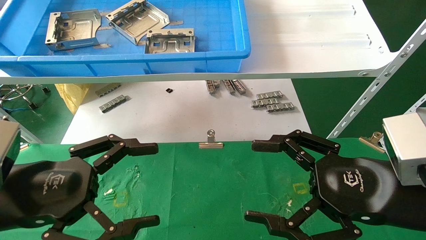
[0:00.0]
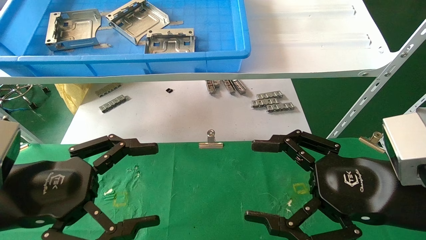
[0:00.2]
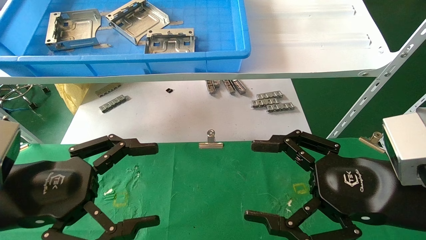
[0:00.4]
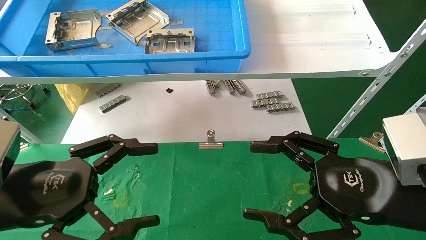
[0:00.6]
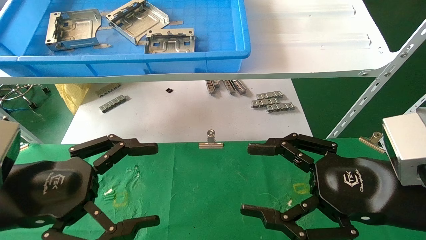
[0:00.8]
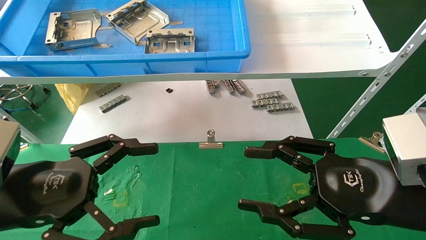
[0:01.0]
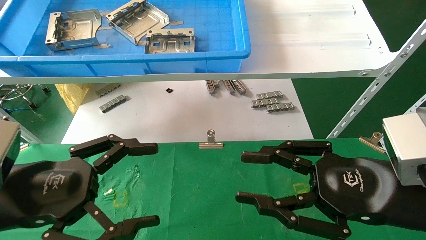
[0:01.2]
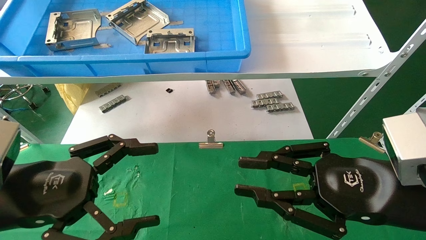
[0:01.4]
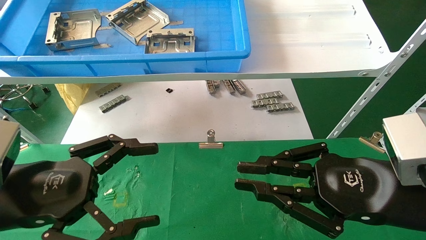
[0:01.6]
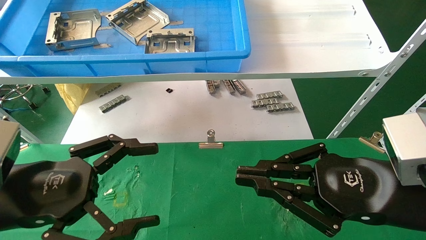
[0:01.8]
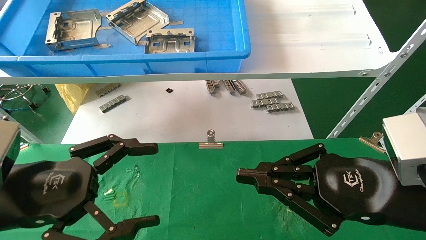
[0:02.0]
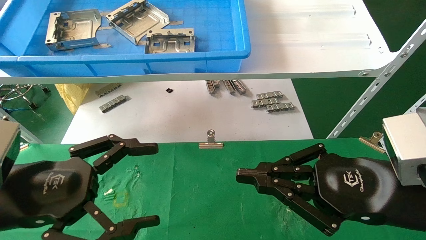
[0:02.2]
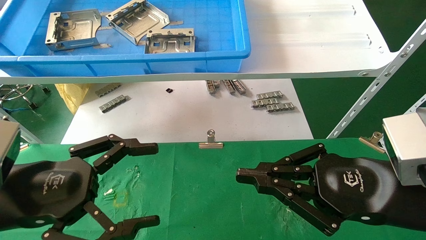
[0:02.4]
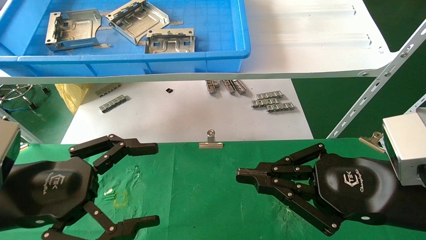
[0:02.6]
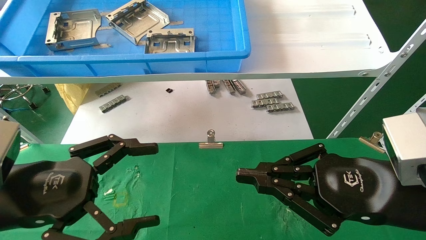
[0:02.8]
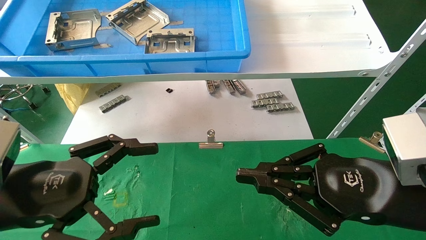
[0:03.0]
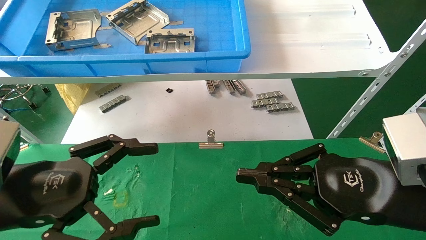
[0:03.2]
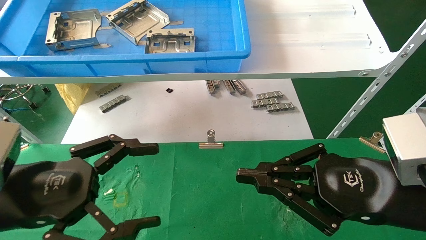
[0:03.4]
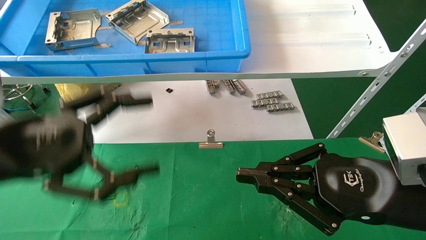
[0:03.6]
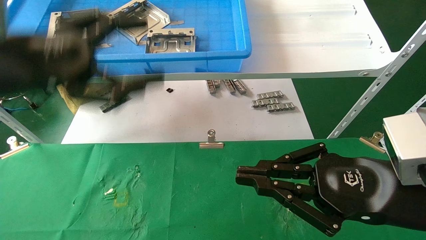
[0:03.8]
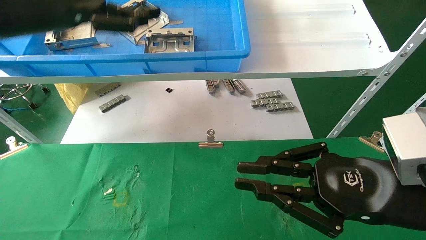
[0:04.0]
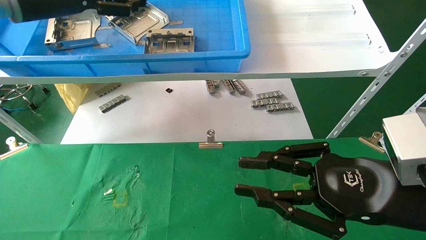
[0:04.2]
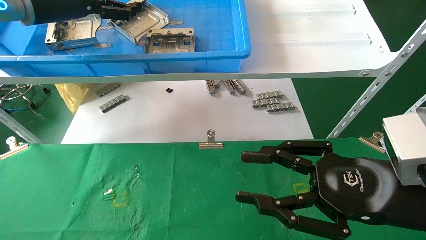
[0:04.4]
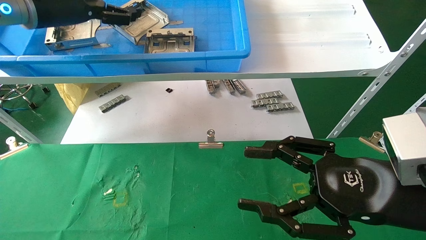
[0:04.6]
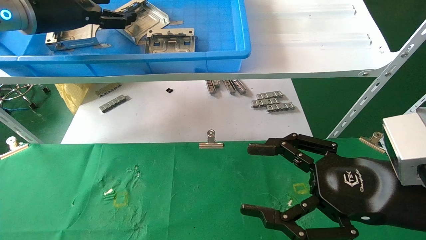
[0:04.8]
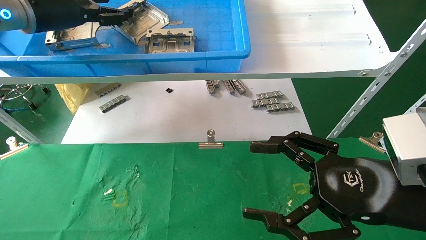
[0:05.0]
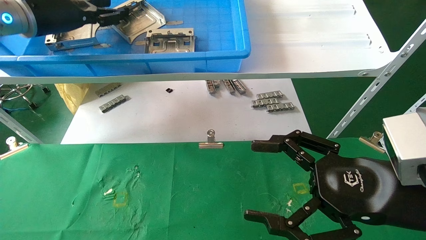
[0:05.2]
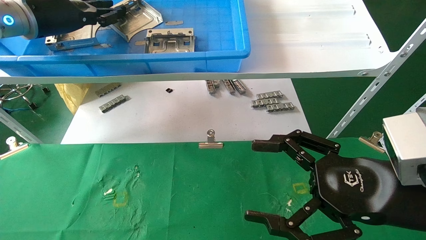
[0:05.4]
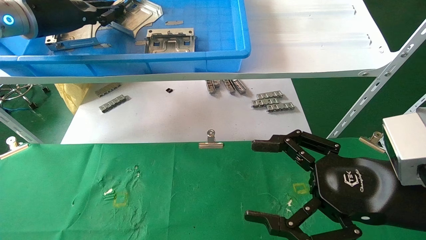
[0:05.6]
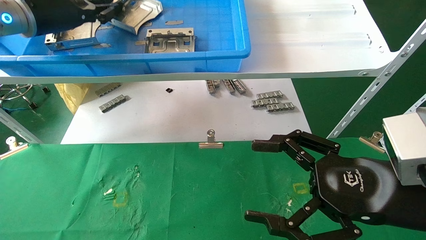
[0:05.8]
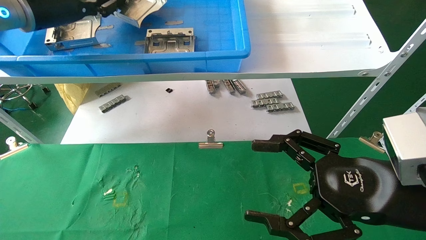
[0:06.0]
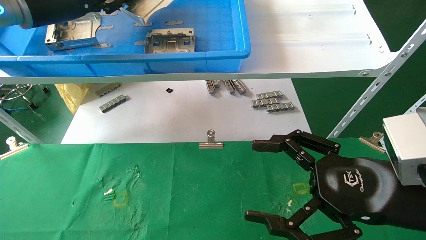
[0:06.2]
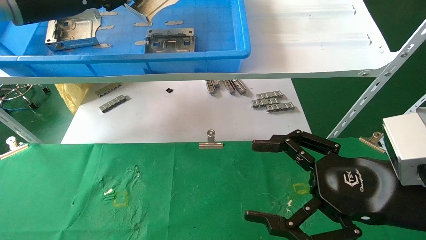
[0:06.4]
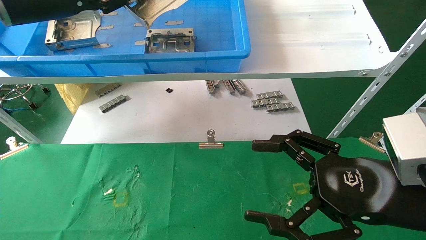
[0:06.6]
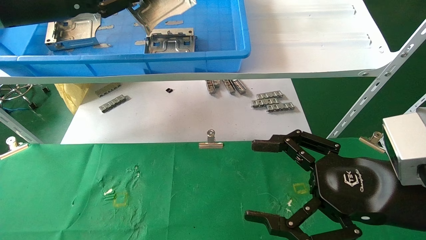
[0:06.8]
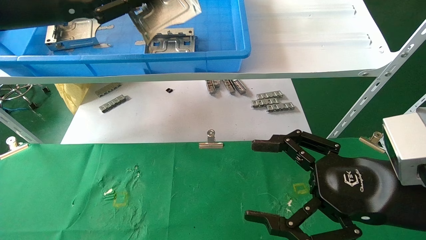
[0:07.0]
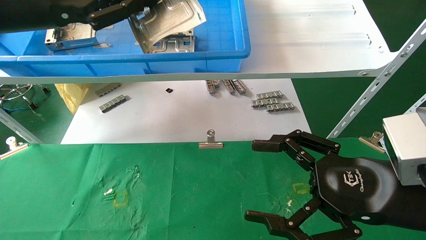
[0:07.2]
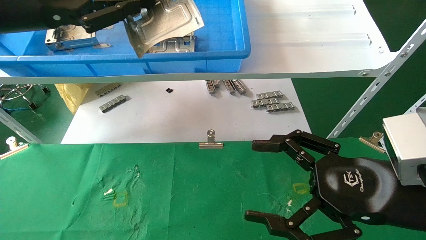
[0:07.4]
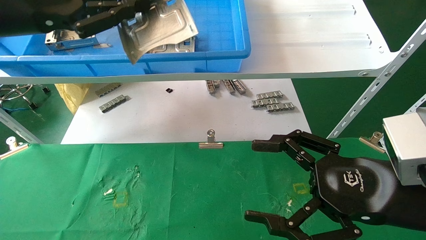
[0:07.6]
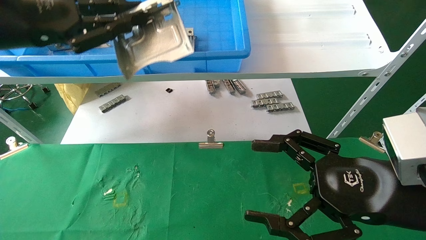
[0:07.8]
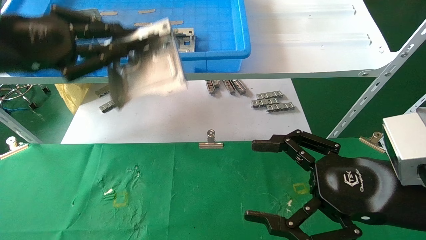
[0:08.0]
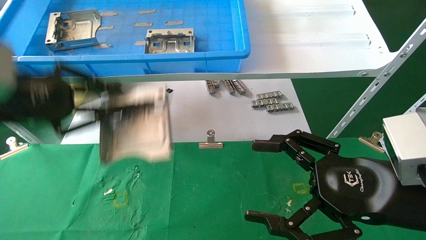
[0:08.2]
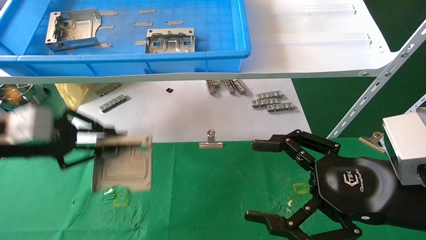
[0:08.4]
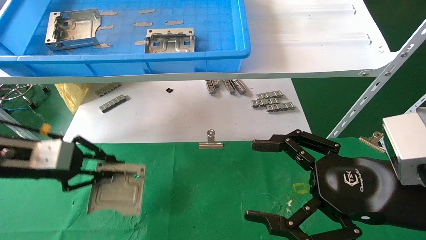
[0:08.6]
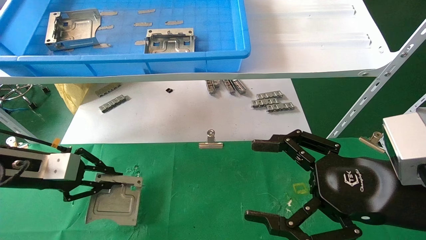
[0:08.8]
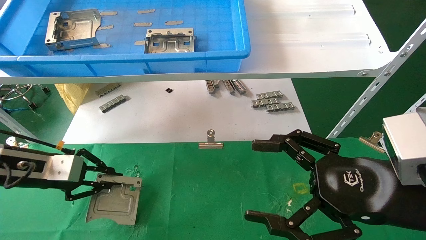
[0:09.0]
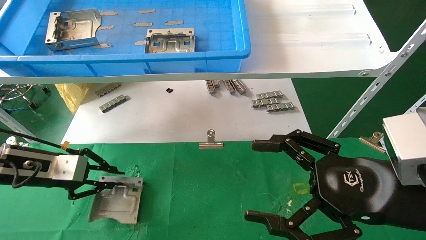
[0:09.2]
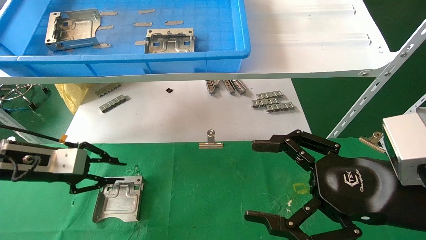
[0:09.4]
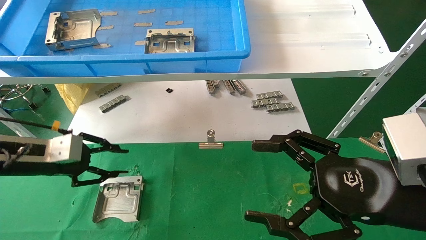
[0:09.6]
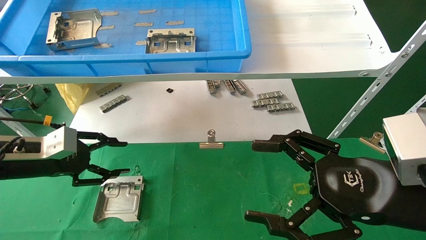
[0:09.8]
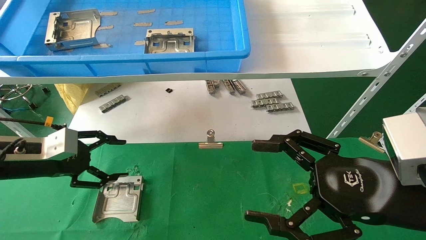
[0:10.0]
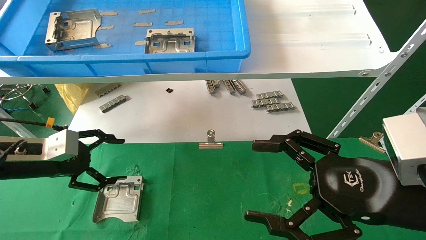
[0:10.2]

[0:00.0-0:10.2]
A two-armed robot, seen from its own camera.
Task of the whole recording: use the mechanical arm to pick up the parts and place them on the table.
Step, 0:03.8 to 0:05.6: Pick up the hard drive bracket from the feeding area.
Step, 0:05.8 to 0:09.2: Place the hard drive bracket into the box.
0:00.0 to 0:01.4: The right gripper closes its fingers.
0:01.4 to 0:03.0: The right gripper closes its fingers.
0:03.0 to 0:04.4: The left gripper is displaced upward and forward by some 30 cm.
0:04.4 to 0:05.8: The right gripper opens up. The left gripper closes its fingers.
0:05.8 to 0:07.2: The left gripper is displaced backward by roughly 10 cm.
0:07.2 to 0:08.8: The left gripper shifts some 25 cm downward.
0:08.8 to 0:10.2: The left gripper opens up.

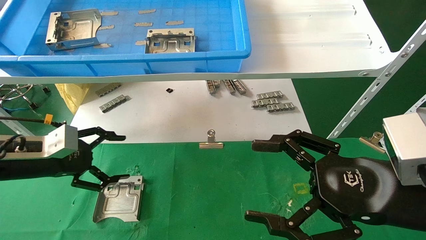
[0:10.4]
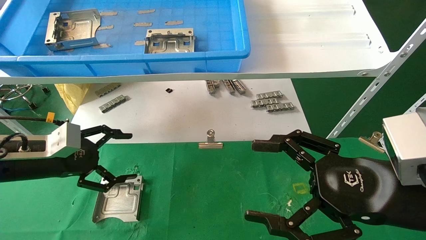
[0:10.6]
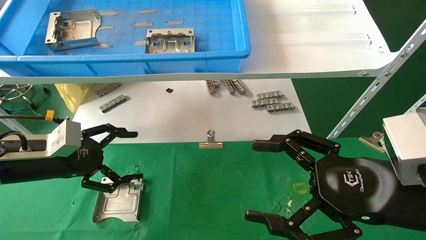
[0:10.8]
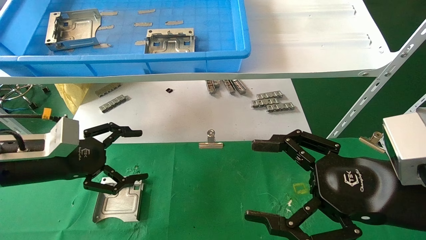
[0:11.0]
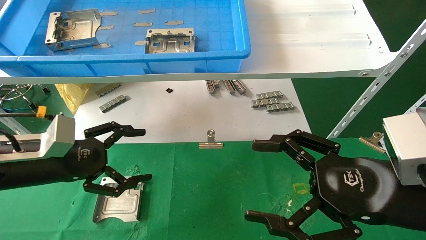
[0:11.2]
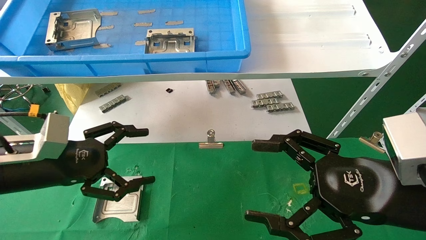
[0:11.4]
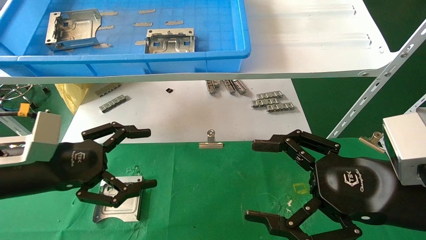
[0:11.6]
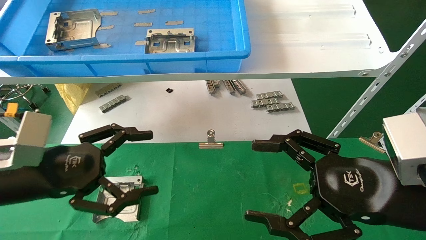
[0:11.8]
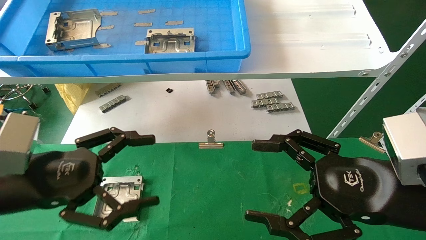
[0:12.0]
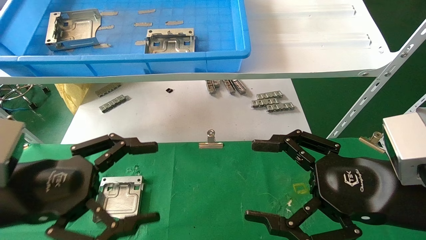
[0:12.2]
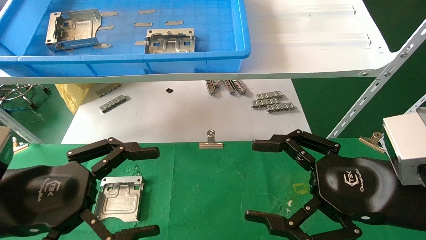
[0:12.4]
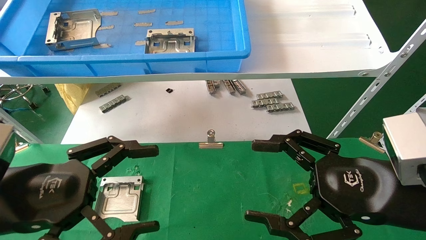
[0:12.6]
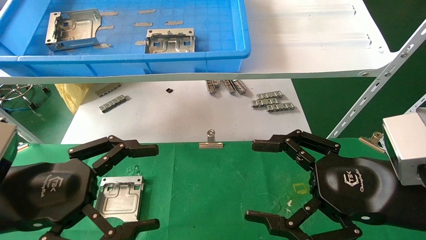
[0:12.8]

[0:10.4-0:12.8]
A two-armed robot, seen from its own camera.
Task of the whole recording: use the mechanical arm to pick up the parts and place them on the table.
0:10.4 to 0:11.6: The left gripper is displaced backward and to the right by some 10 cm.
0:11.6 to 0:12.8: The left gripper goes about 10 cm backward.

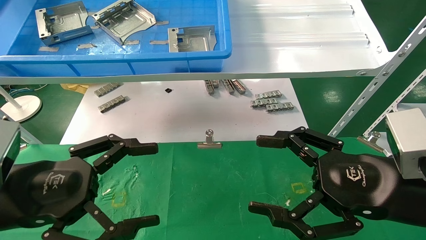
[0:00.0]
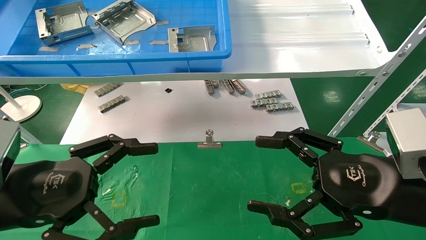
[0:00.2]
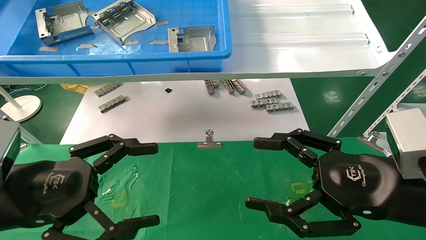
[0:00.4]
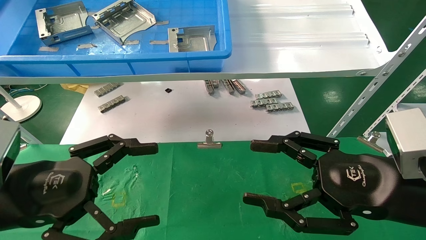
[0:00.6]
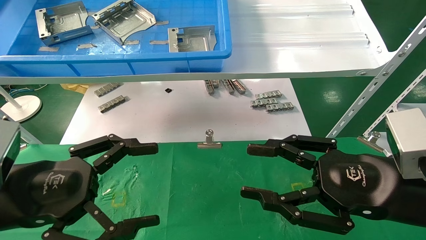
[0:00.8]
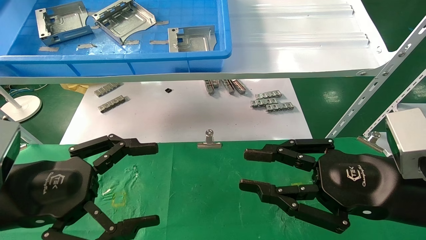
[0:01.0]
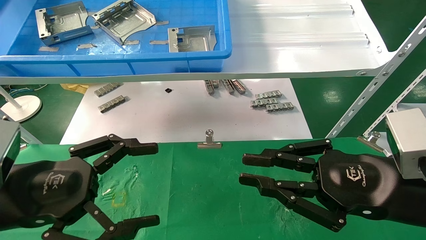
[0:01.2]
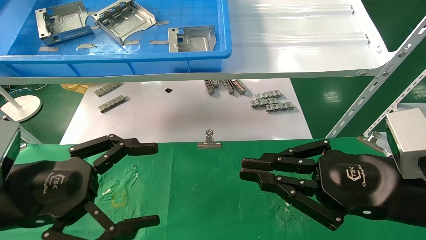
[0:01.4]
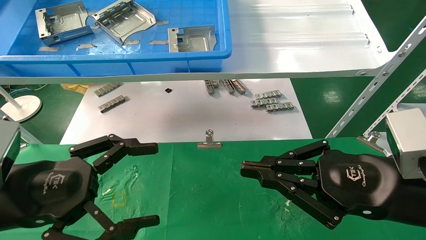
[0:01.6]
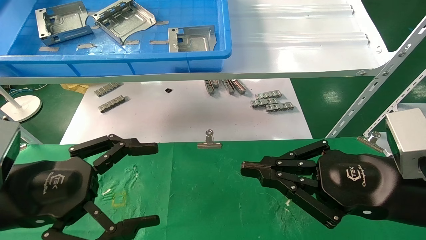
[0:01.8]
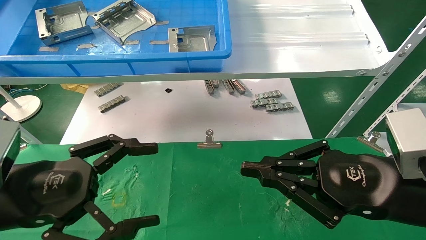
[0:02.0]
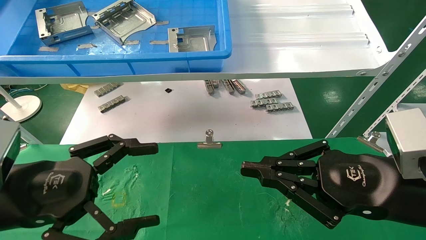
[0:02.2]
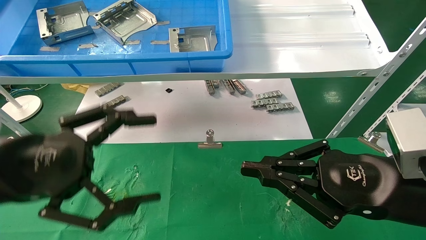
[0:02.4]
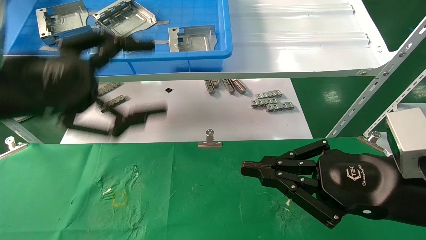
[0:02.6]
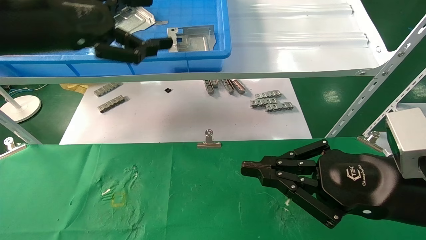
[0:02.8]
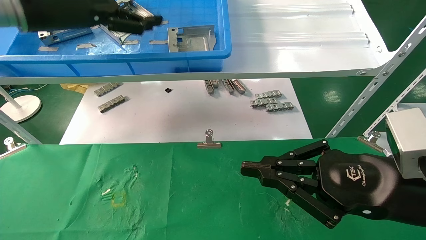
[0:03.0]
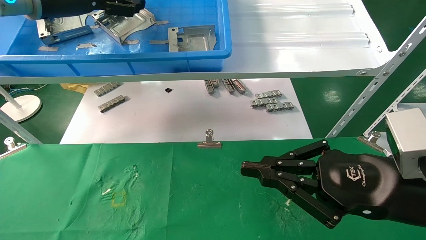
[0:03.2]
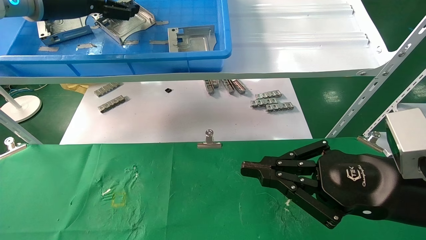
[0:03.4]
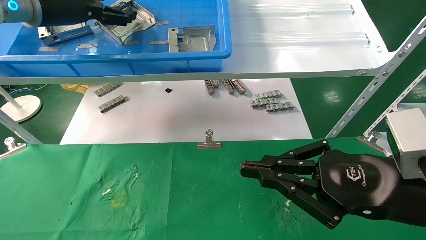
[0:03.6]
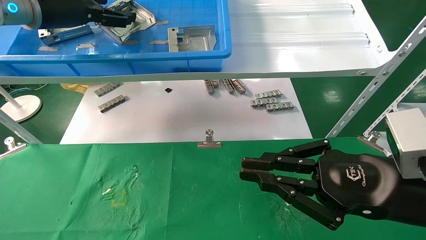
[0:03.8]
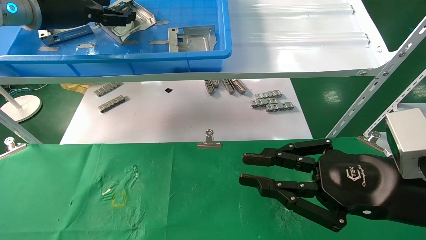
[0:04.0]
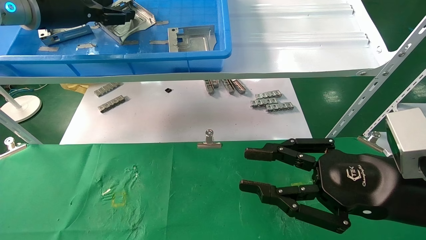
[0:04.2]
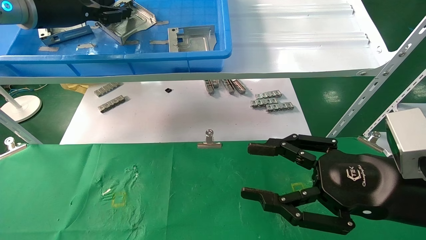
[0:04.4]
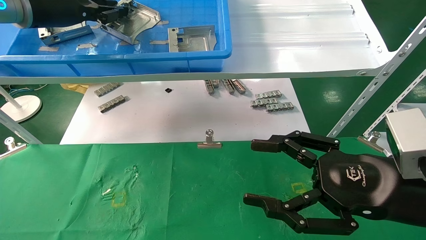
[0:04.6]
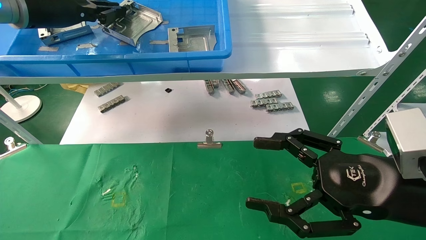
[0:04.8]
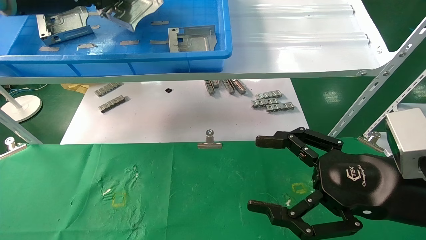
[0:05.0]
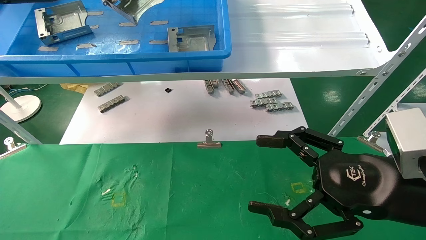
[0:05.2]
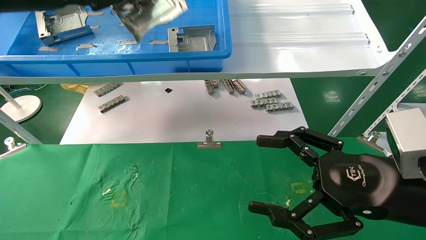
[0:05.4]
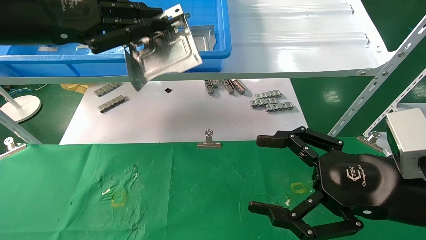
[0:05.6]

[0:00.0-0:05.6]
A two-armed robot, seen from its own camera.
Task of the whole recording: use the mechanical arm to pick up the parts and place them on the table.
Step, 0:02.0 to 0:05.2: Pick up the hard drive bracket from the feeding area.
0:00.0 to 0:01.4: The right gripper closes its fingers.
0:01.4 to 0:02.8: The left gripper shifts approximately 20 cm upward and forward.
0:02.8 to 0:04.2: The left gripper shifts some 10 cm forward.
0:04.2 to 0:05.6: The right gripper opens; the left gripper travels backward by approximately 10 cm, and closes up.
